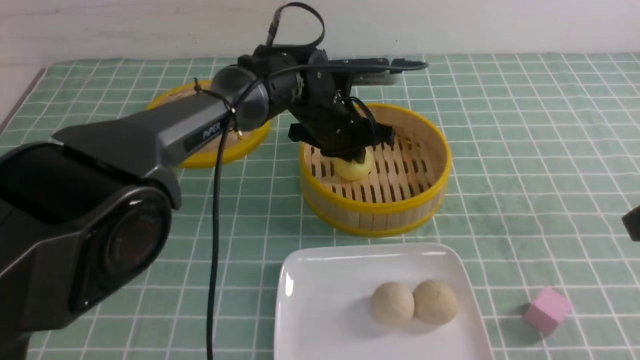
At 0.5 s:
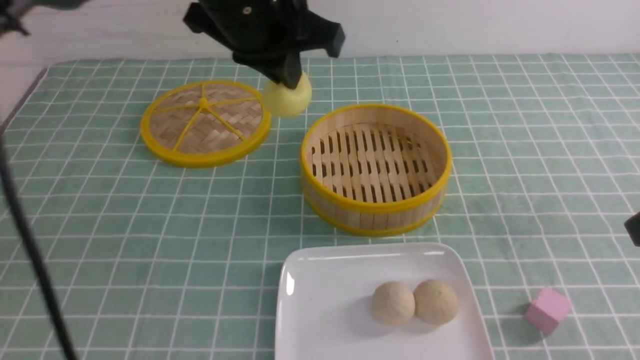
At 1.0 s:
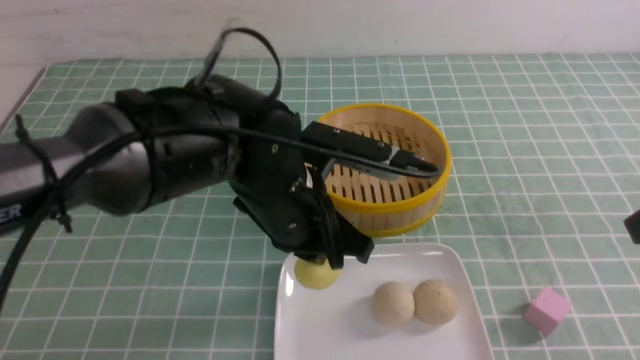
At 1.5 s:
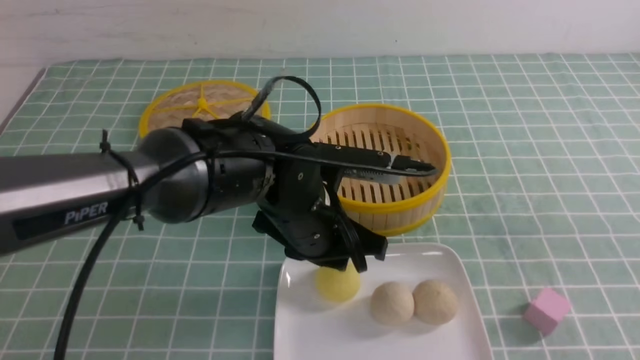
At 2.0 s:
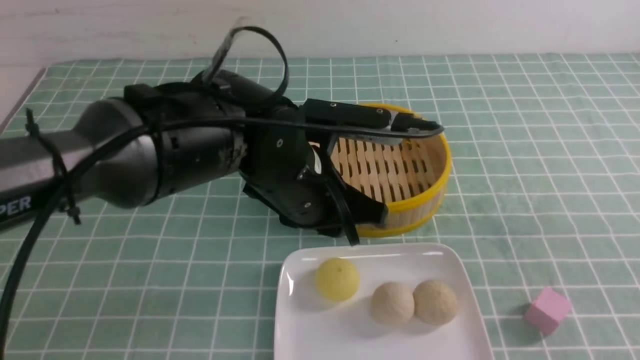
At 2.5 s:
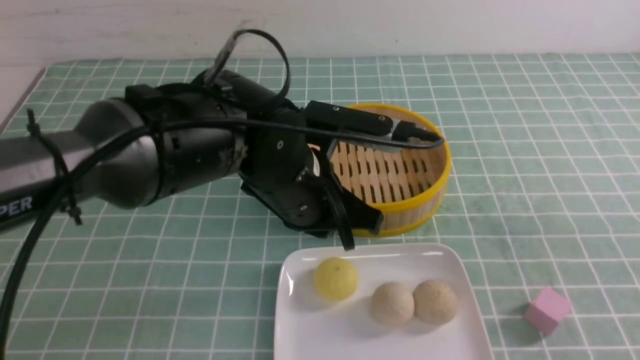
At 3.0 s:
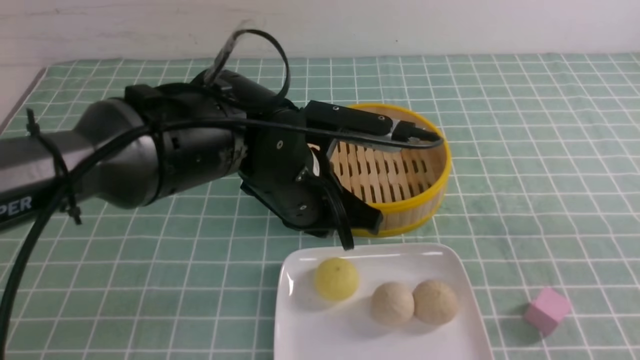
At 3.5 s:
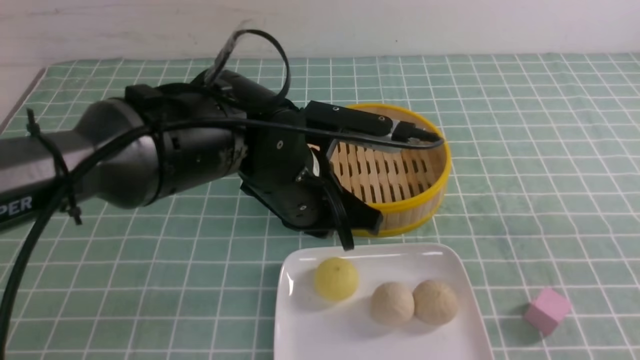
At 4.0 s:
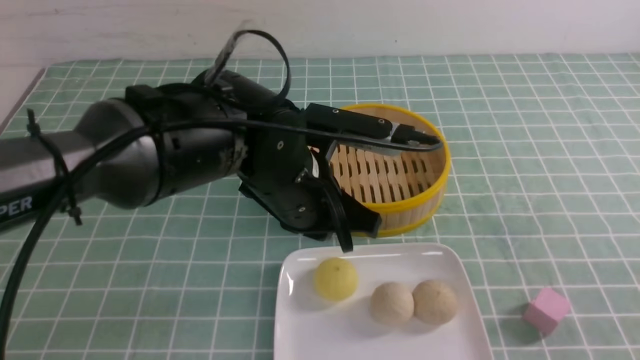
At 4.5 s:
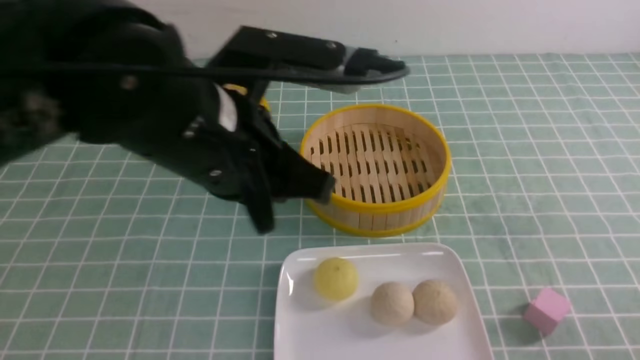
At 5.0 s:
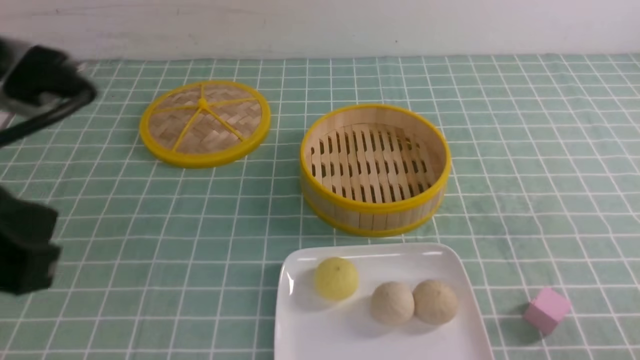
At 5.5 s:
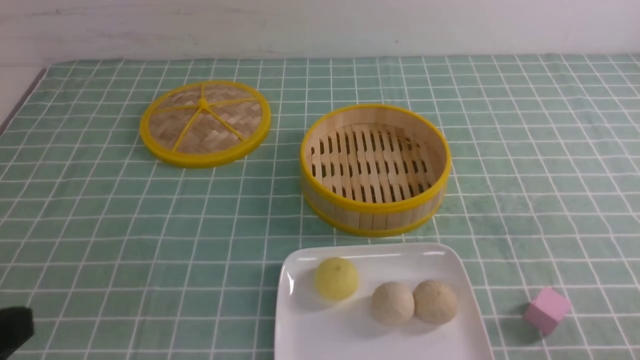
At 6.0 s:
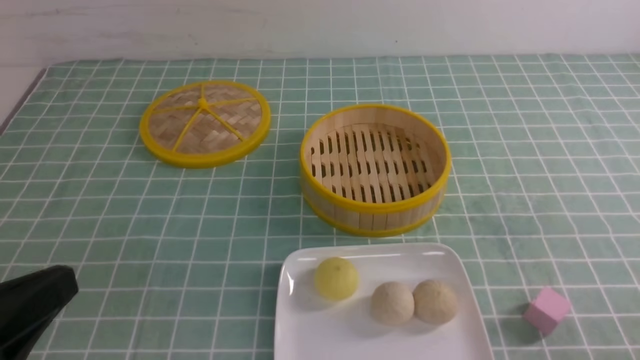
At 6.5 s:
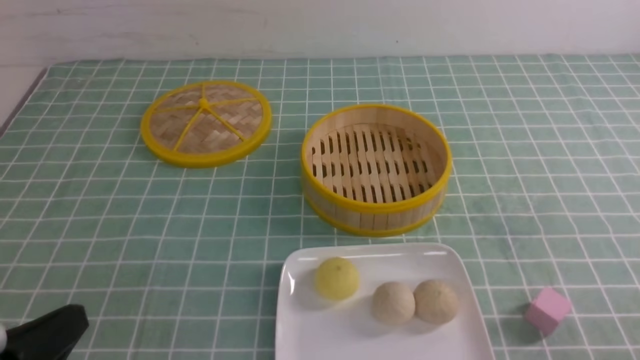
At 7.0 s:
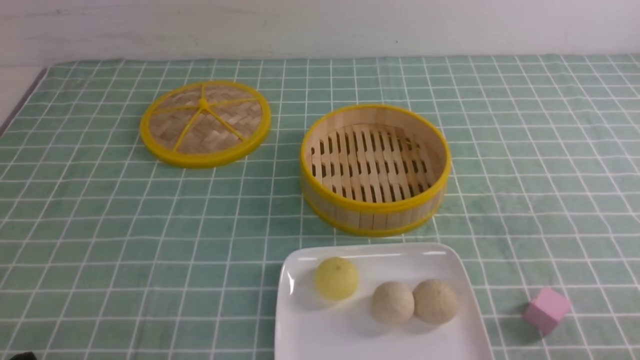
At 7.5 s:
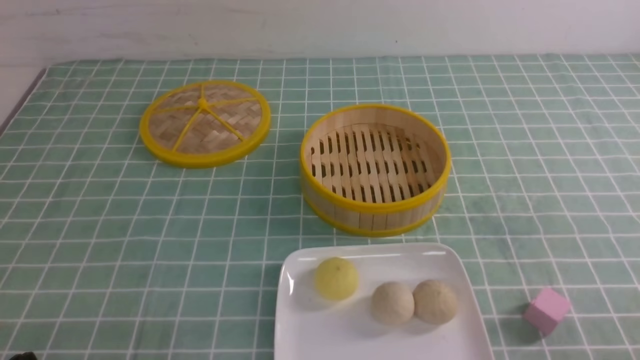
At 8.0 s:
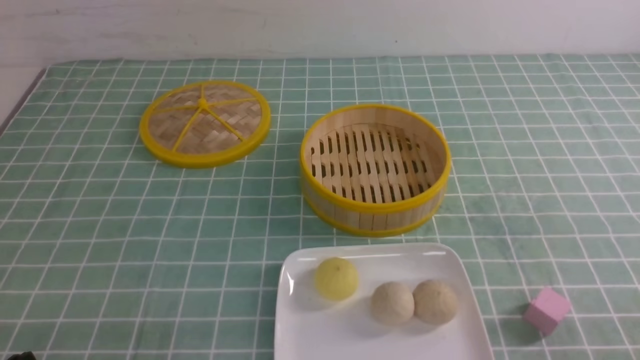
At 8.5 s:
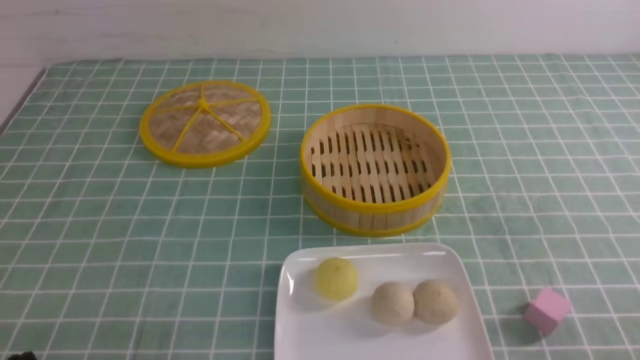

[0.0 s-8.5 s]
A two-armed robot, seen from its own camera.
Step, 0.5 to 1.5 s: use the left arm to put the steamed stuffed bun into the plate.
0.0 to 2.0 s: Both grippers move backward, some 15 cm.
2.0 to 4.0 s: The left gripper closes up. Meanwhile the right gripper moves downward, about 10 cm.
4.0 to 6.5 s: The left gripper is displaced to the left and backward by roughly 30 cm.
6.5 to 8.5 s: The left gripper goes roughly 5 cm downward.
